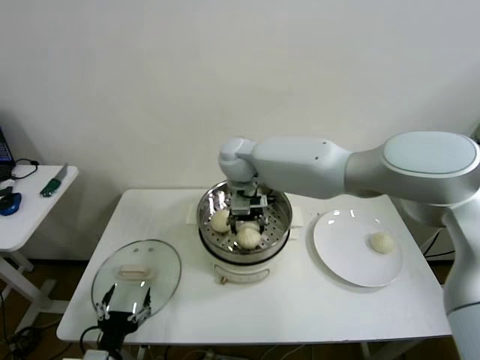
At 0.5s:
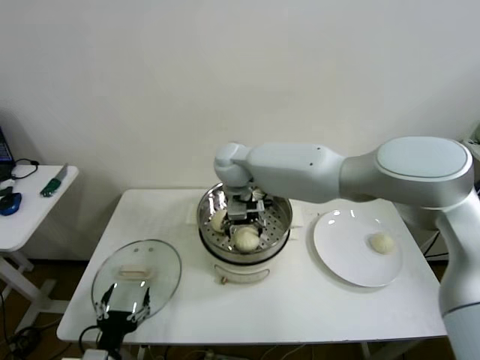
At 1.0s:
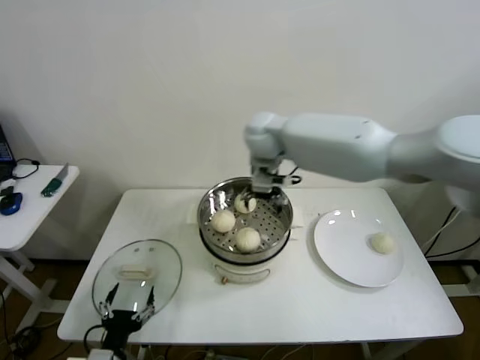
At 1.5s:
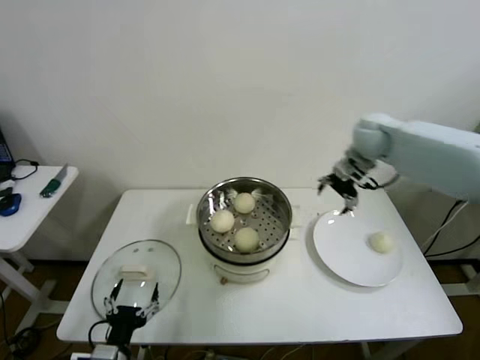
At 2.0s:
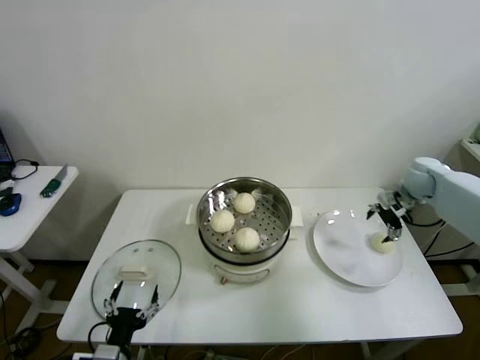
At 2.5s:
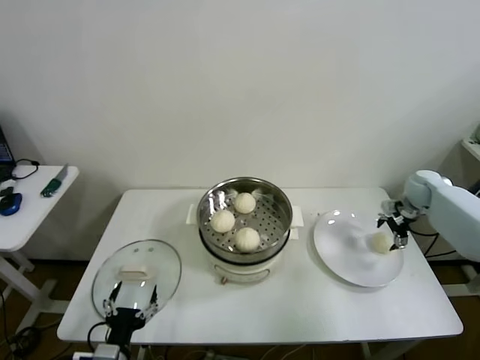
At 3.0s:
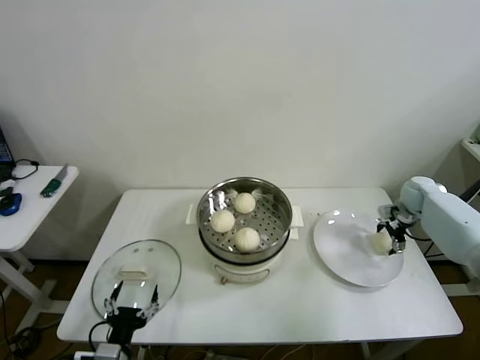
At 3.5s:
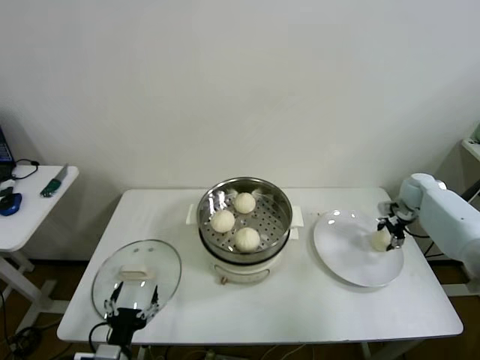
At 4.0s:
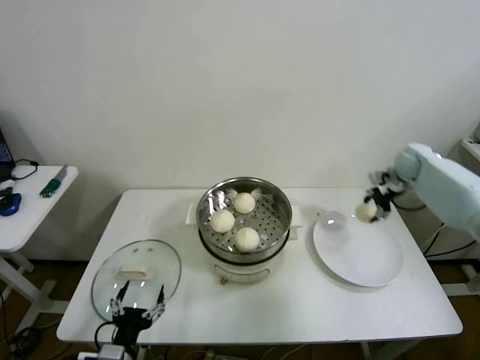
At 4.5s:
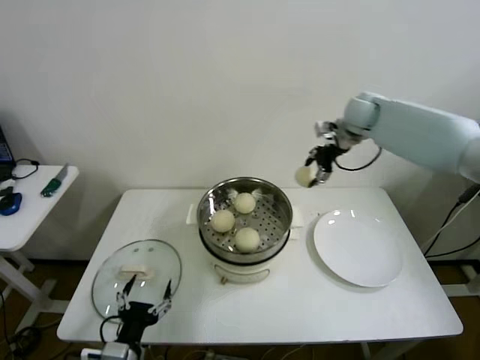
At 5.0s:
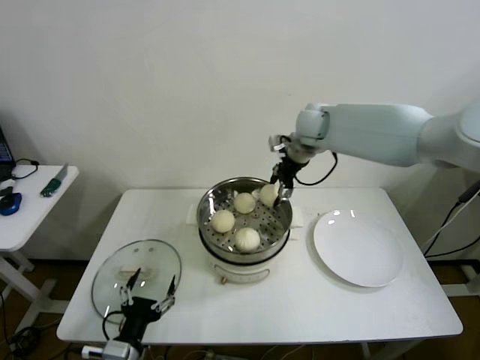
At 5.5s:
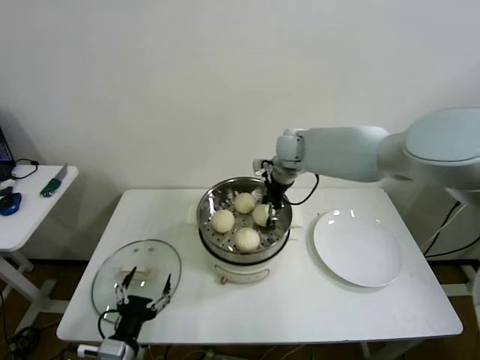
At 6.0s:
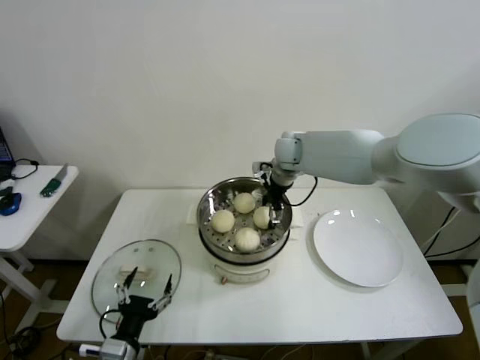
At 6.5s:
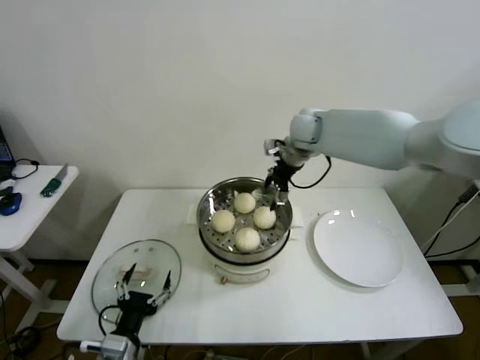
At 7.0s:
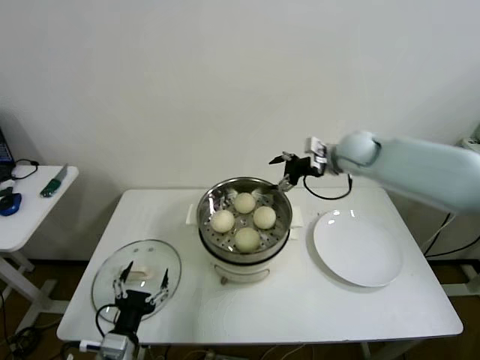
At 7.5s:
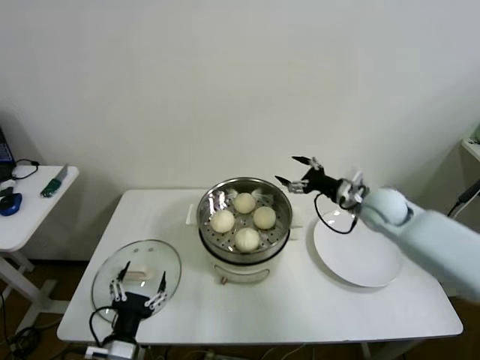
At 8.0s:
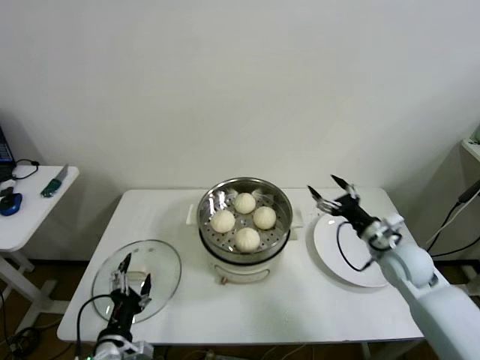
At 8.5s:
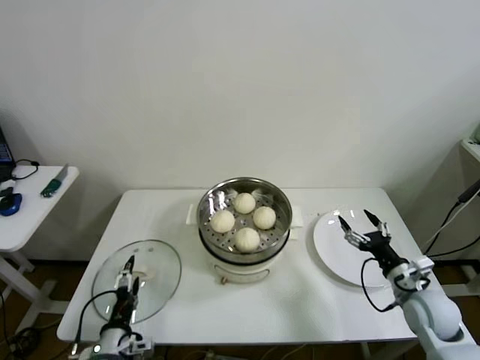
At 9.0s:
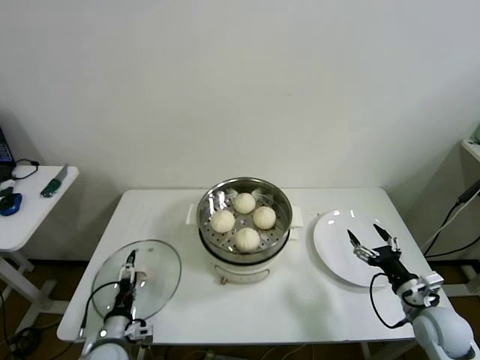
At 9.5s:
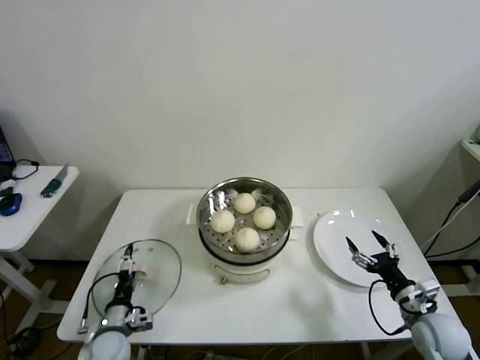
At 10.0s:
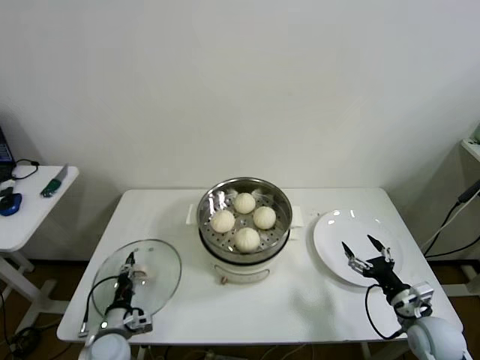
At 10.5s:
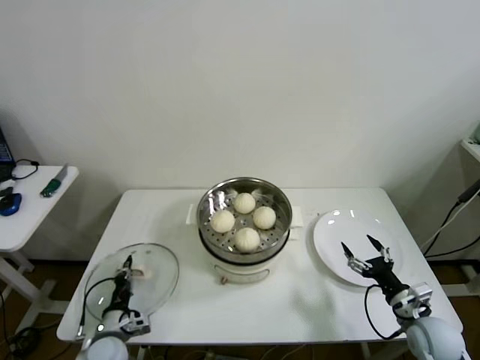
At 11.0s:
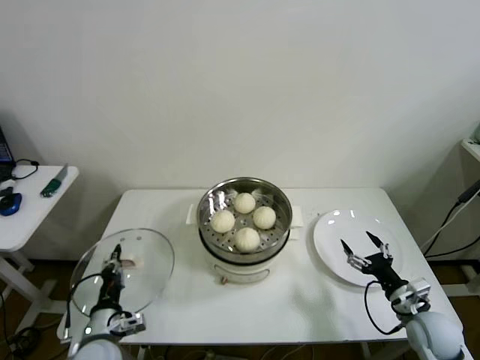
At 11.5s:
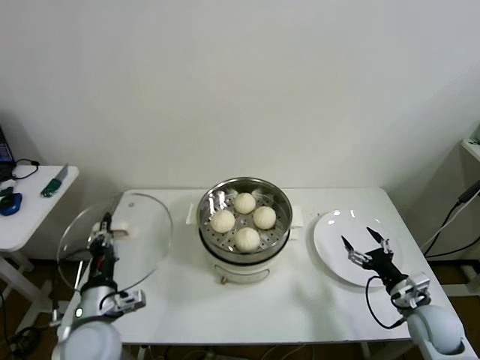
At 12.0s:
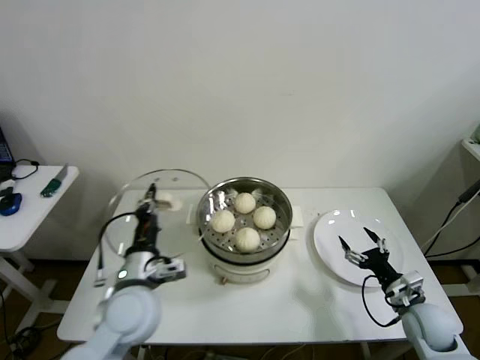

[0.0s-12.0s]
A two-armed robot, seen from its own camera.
Step, 1.0s to 3.0s: Grasp the baozi in the plate with right gripper.
Step, 3.5s to 5.5s: Place the baozi on the steamer with right gripper.
Step, 6.0s to 10.0s: Grasp the pot lid with left gripper.
0.0s to 2.0s: The right gripper moves to the right, about 50 cm, and opens up.
2.0s to 4.0s: The right gripper travels forward by about 5 cm, reaches some 10 cm downward, then returns, and closes.
4.0s to 6.0s: The right gripper travels to the left by about 35 cm, and opens its fingers.
6.0s to 8.0s: The right gripper is displaced to the right, backward and downward by about 35 cm.
8.0s to 10.0s: The left gripper shifts roughly 15 cm downward, forward and to the left, and closes up; the right gripper goes roughly 15 cm backward and downward.
10.0s to 12.0s: The left gripper is displaced upward and to the right by about 25 cm, and closes.

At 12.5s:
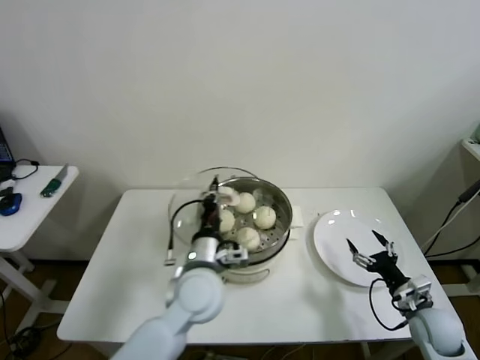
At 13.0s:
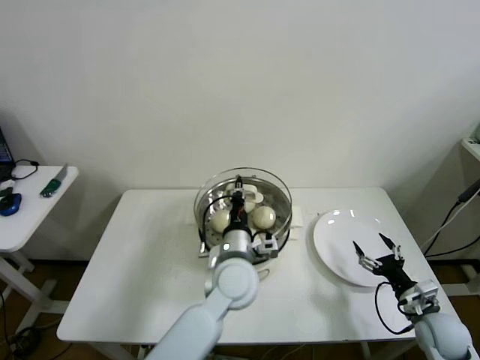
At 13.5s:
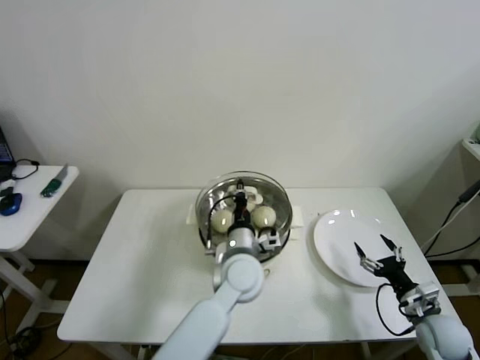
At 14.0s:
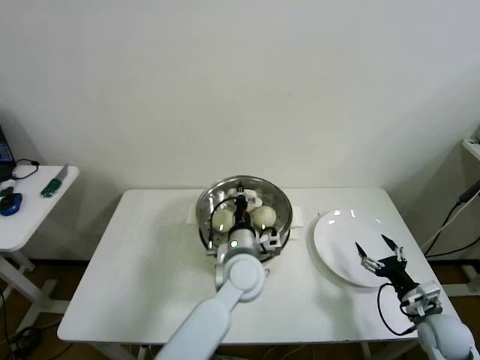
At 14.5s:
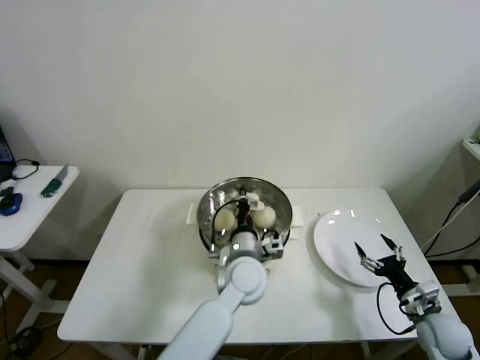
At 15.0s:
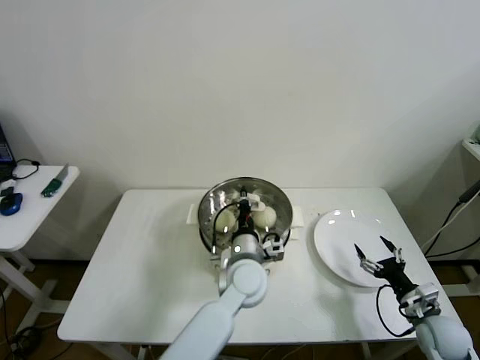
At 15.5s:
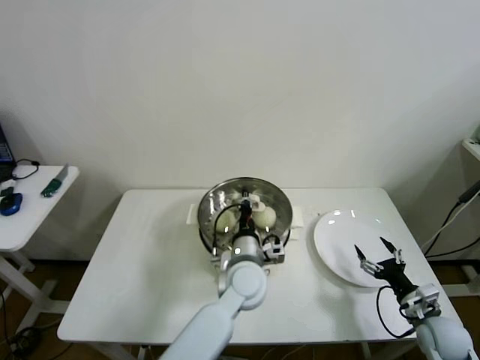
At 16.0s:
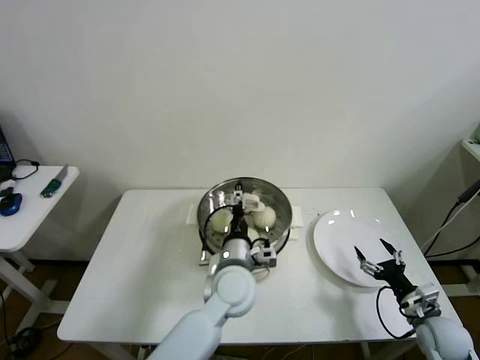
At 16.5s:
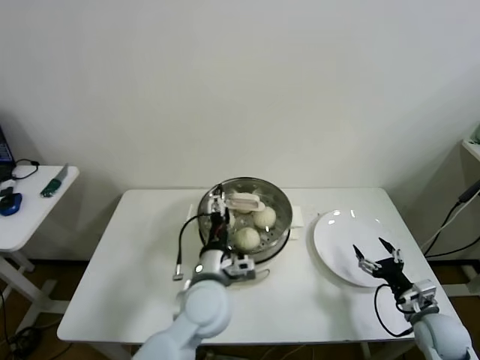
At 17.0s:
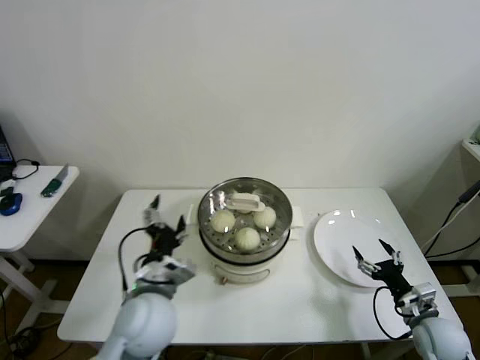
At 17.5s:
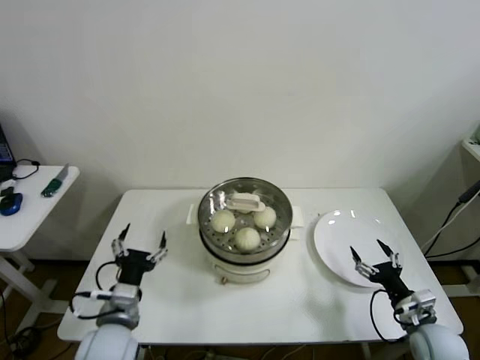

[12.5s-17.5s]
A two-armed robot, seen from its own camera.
Step, 12.5s to 15.5s: Place the pot lid on the steamer with left gripper.
12.5s to 15.0s: The left gripper is displaced to the right by about 10 cm.
15.0s to 17.5s: The left gripper shifts roughly 25 cm to the left and backward, and opens up.

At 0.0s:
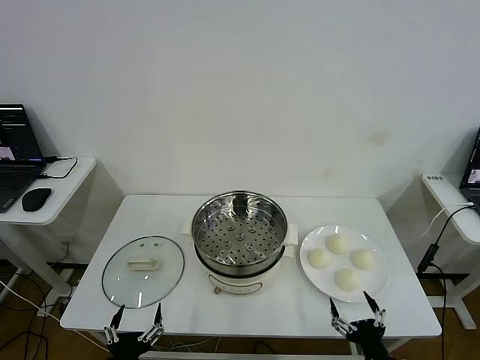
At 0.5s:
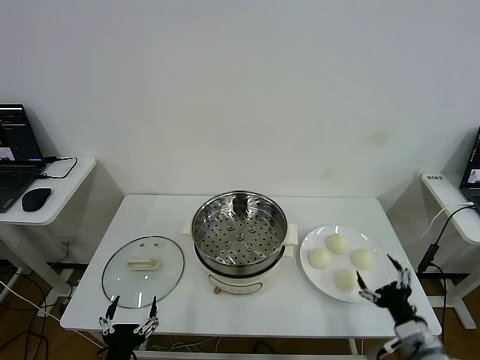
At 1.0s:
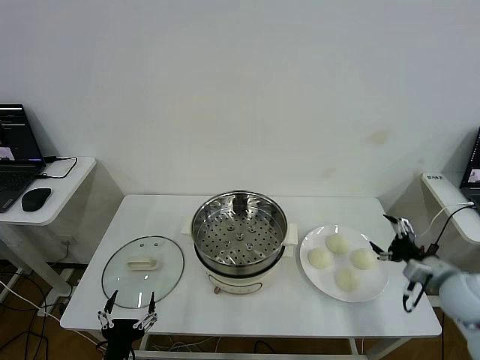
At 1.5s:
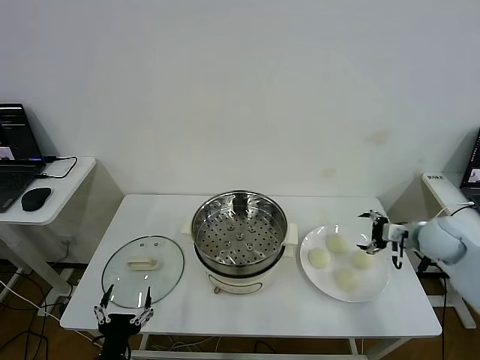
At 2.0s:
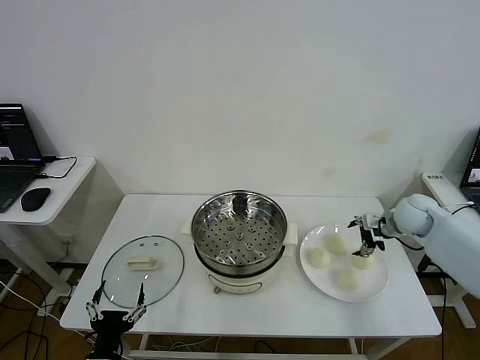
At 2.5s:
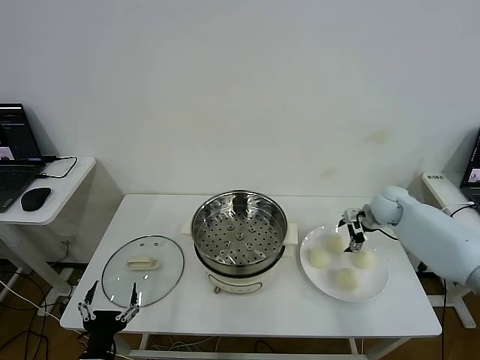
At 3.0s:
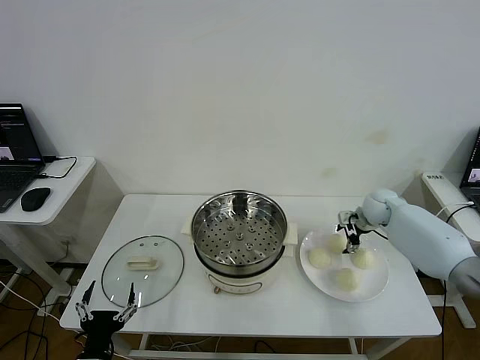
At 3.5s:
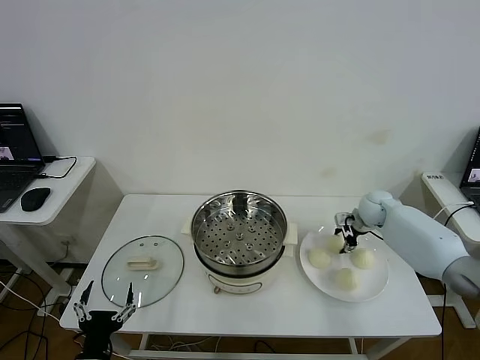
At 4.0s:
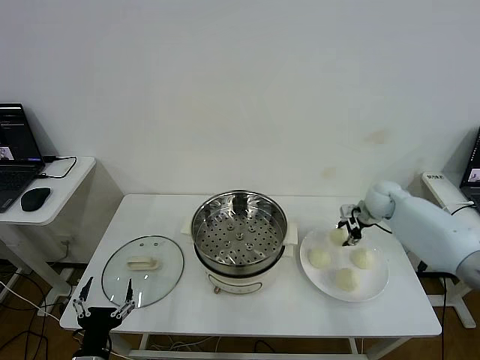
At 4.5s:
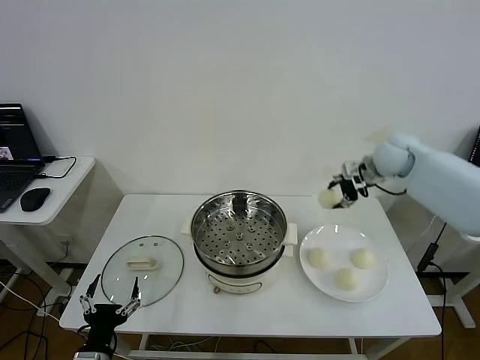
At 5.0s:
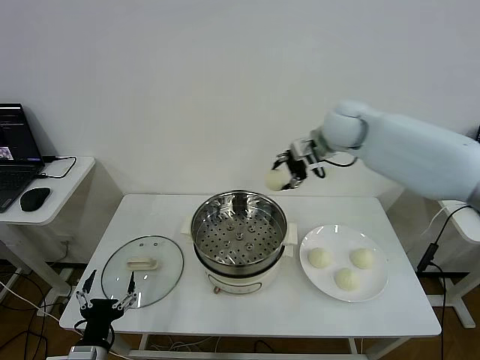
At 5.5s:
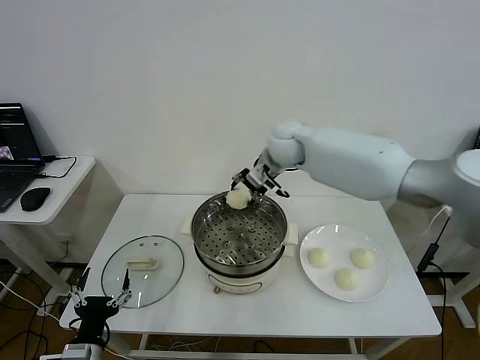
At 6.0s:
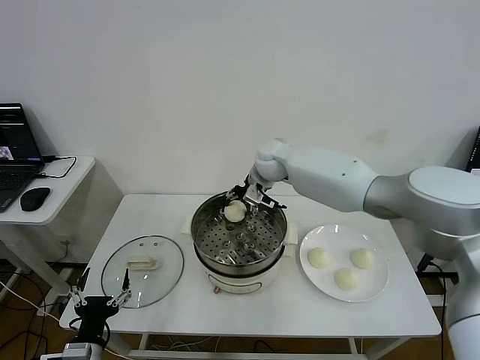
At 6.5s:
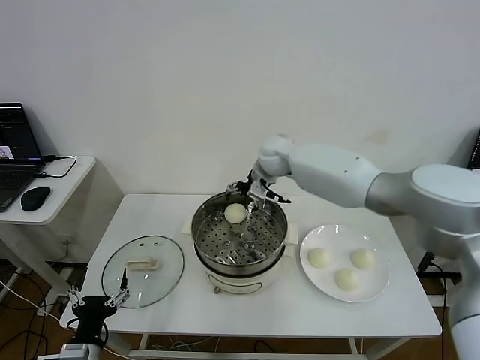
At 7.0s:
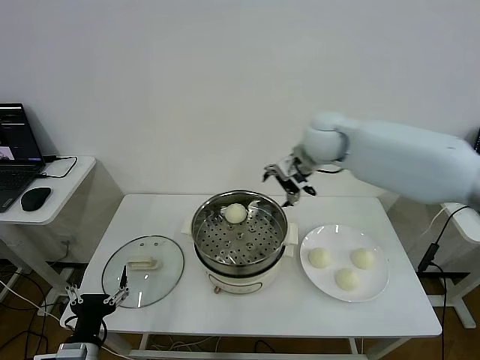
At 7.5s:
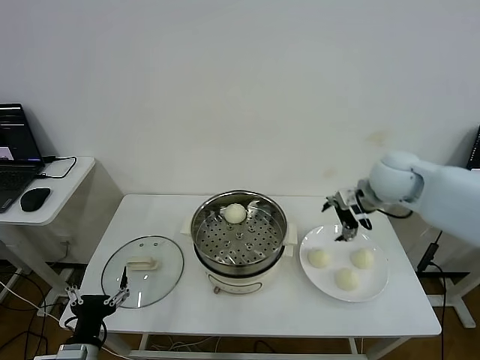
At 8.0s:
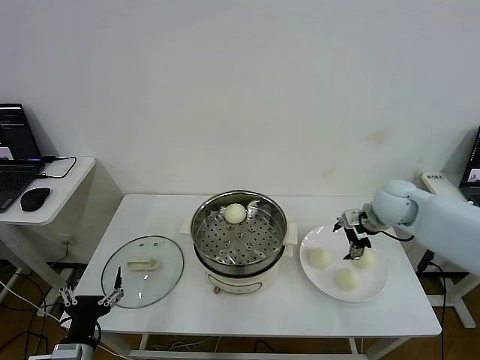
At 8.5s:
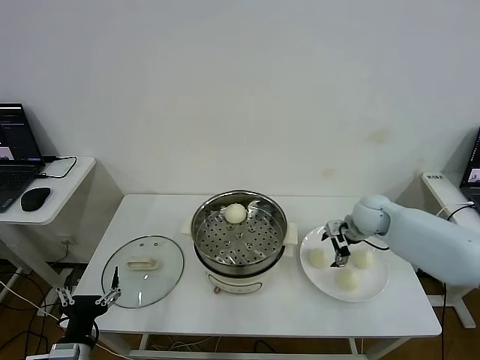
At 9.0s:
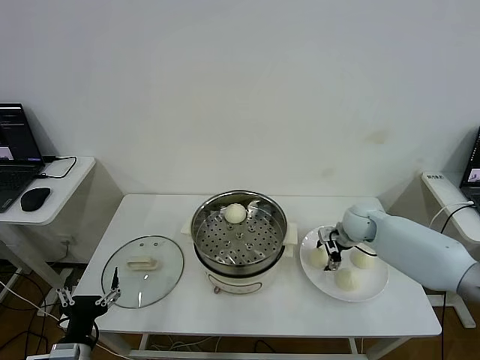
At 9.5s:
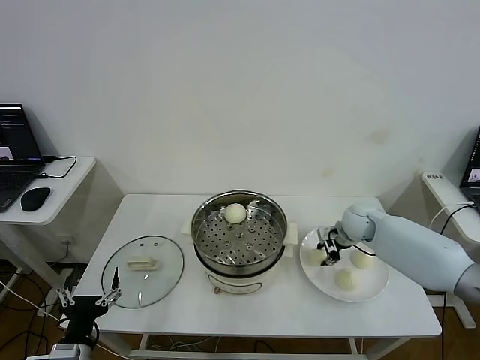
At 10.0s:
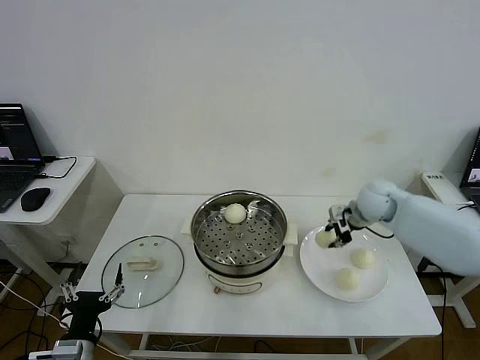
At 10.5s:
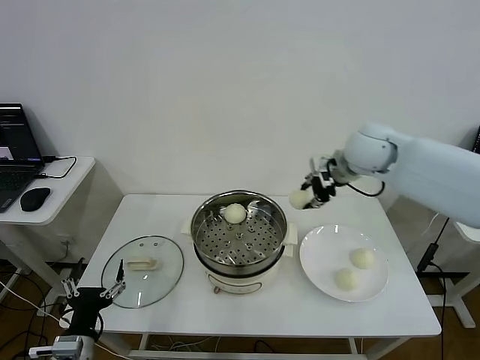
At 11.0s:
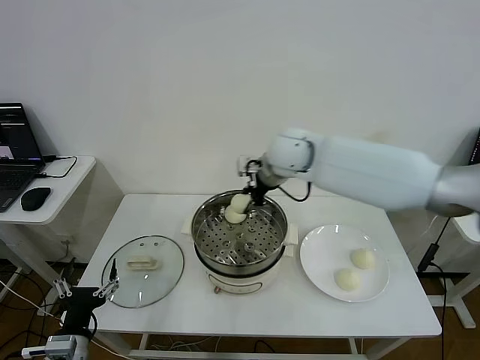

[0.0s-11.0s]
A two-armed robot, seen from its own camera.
Step, 0.0s to 3.0s: Grasp the baozi in the plate with right gripper.
Step, 3.5s to 6.0s: Place the baozi on the steamer with right gripper.
Step, 6.5s to 9.0s: Grasp the baozi in the plate with right gripper.
2.0s to 3.5s: The right gripper moves forward, roughly 5 cm, and closes.
3.5s to 5.5s: The right gripper shifts some 35 cm to the left and upward.
5.5s to 7.5s: The right gripper moves to the right and backward, approximately 25 cm, and opens.
7.5s to 9.0s: The right gripper heads downward, covering about 15 cm, and closes.
9.0s to 11.0s: The right gripper travels to the left and upward by approximately 30 cm, and closes up.
